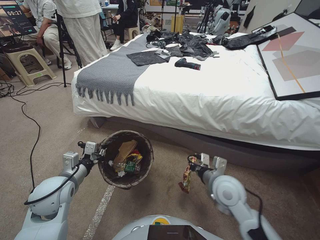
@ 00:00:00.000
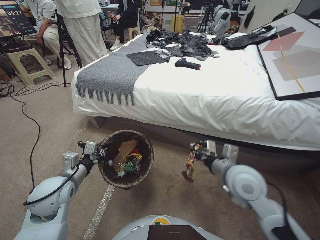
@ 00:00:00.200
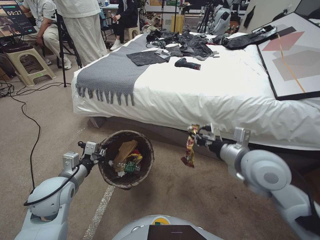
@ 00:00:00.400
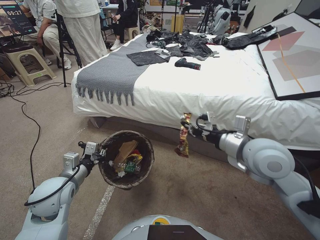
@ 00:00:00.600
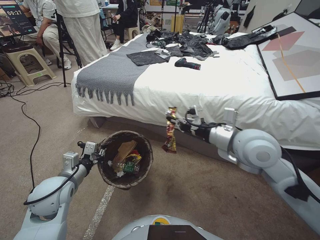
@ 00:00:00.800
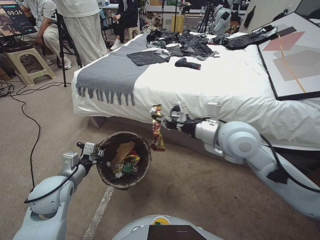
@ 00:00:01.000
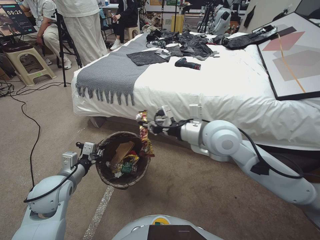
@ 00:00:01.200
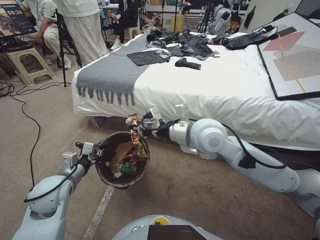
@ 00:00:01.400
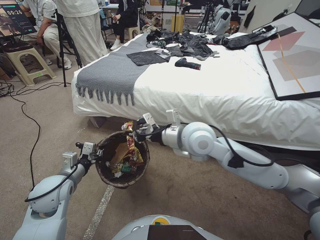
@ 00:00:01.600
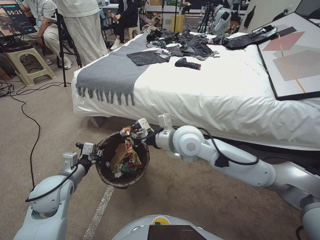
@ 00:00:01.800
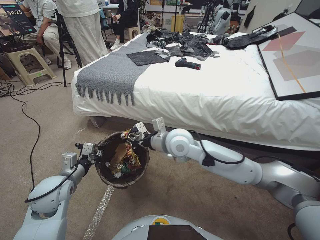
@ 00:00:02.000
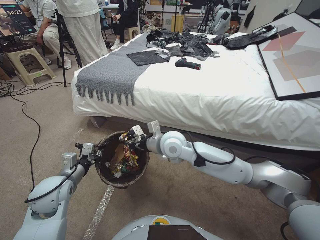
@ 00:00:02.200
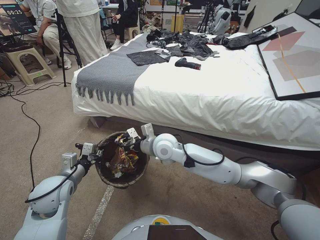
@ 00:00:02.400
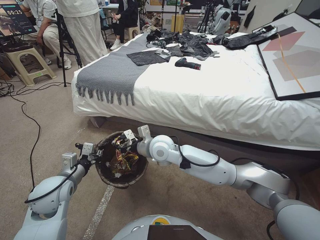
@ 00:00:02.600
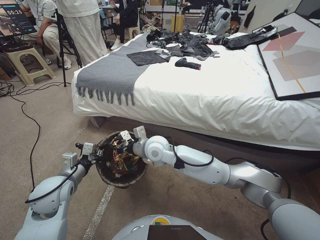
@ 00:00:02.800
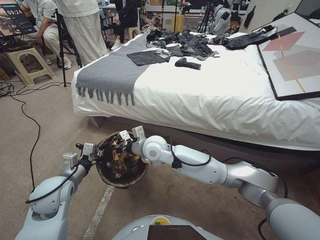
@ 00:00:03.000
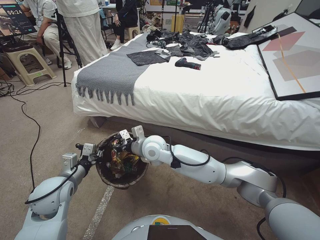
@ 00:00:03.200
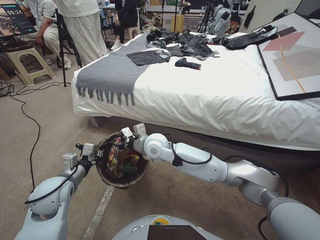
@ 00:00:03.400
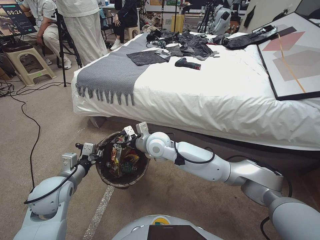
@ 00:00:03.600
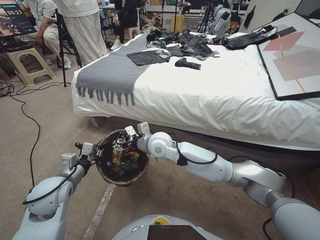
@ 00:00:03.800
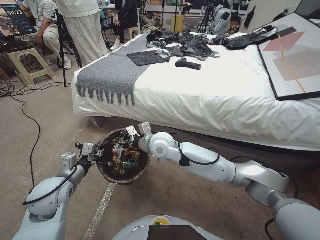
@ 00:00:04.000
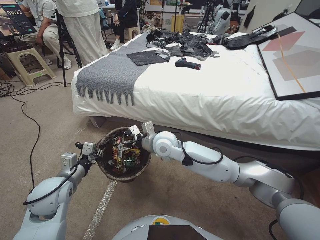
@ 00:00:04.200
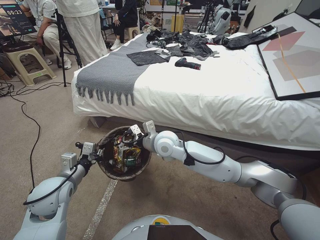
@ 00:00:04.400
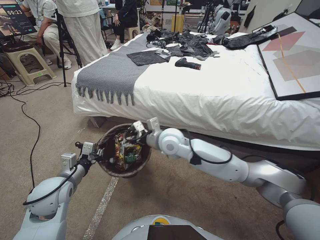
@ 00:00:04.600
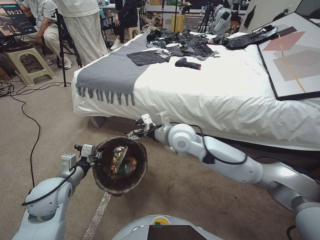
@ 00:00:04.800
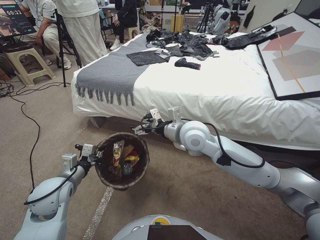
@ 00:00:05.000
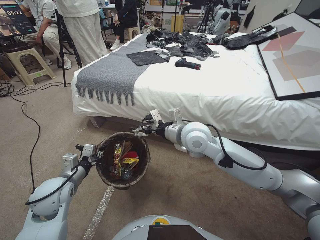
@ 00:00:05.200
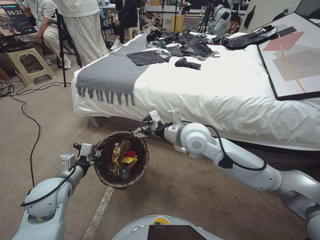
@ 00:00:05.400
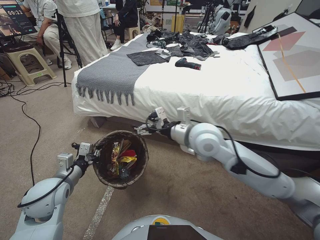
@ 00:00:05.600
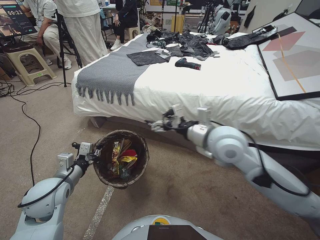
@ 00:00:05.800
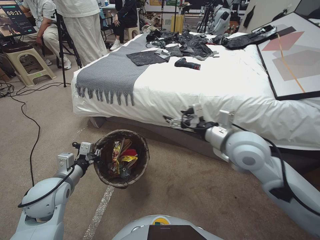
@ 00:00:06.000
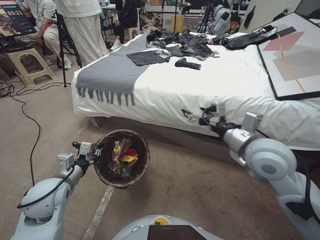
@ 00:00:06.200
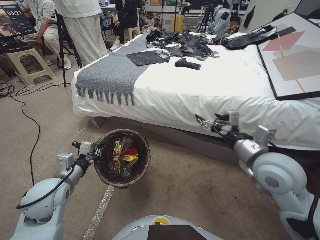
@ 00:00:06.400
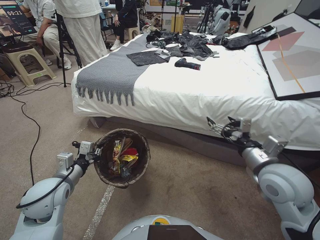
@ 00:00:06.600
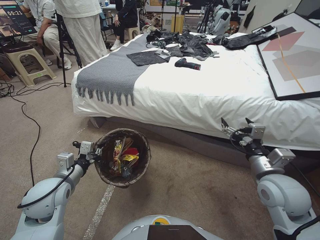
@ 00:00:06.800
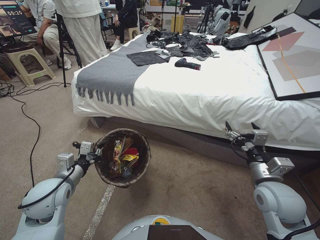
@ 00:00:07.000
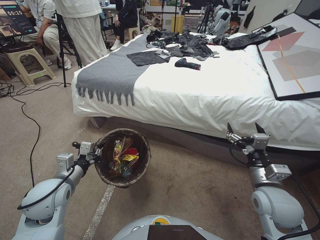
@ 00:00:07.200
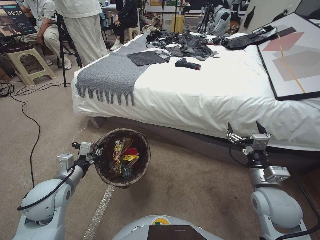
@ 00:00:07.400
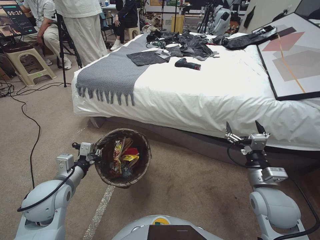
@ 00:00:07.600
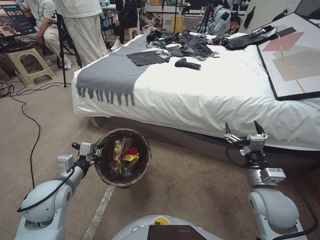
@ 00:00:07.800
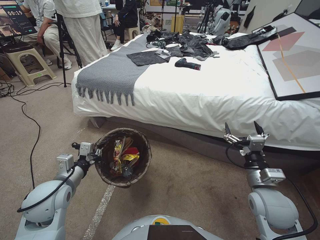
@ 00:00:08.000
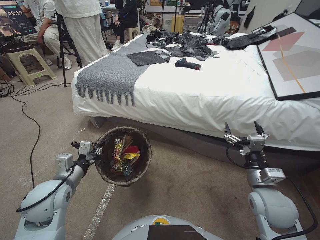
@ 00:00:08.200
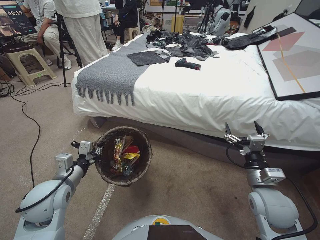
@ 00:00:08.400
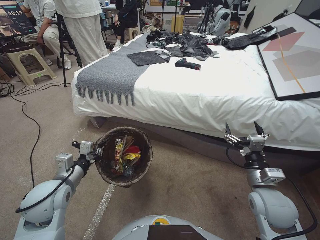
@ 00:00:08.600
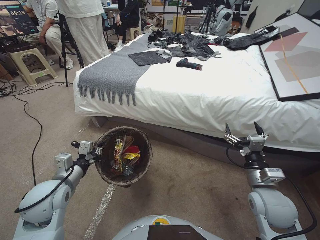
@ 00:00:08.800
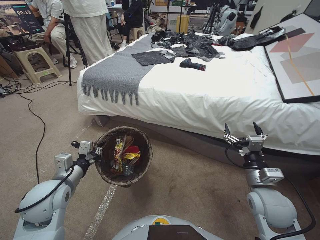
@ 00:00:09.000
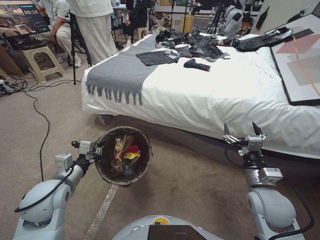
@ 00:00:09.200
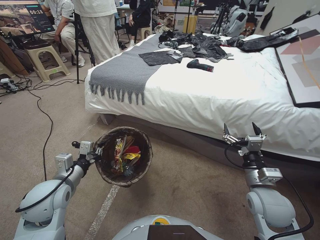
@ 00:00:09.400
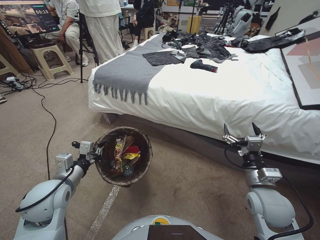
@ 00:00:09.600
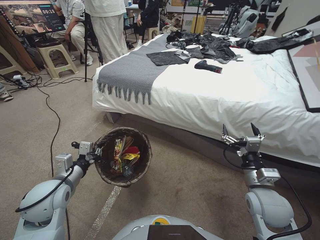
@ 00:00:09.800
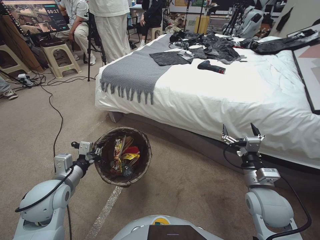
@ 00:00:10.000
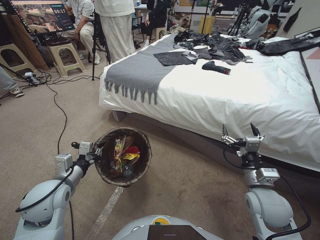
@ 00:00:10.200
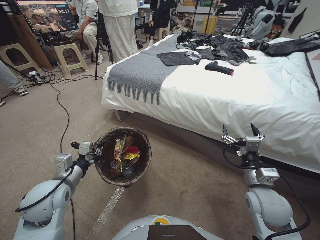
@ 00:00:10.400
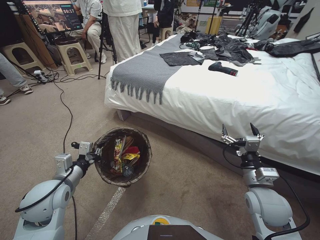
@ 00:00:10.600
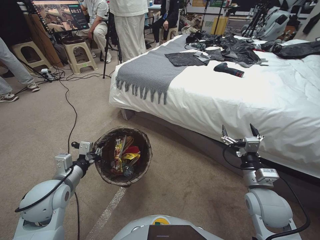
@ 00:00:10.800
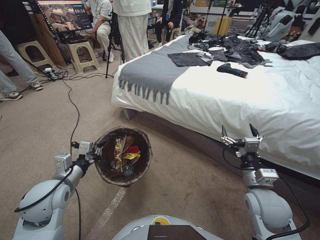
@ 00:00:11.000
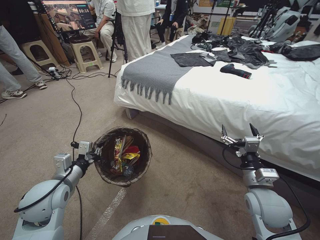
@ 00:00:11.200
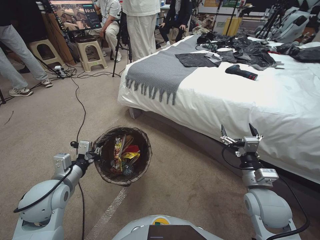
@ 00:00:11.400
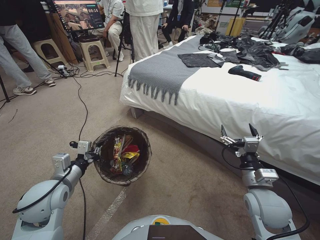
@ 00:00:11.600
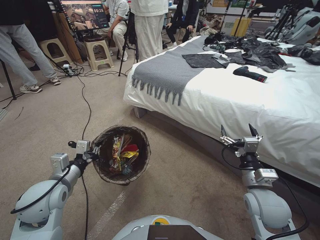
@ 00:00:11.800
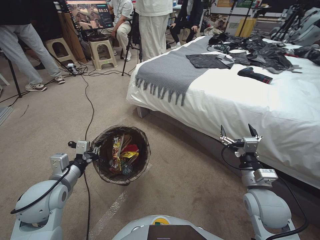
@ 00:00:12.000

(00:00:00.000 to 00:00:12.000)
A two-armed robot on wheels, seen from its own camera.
Task of the whole recording: Pick up the trash bin, then pick up the garbage from the floor and place it into the trash bin.
00:00:00.000 - 00:00:01.600: The right gripper travels upward, to the left and forward by approximately 25 cm.
00:00:01.600 - 00:00:03.000: The right gripper travels downward and to the left by some 15 cm.
00:00:03.000 - 00:00:04.400: The right gripper opens up.
00:00:04.400 - 00:00:06.000: The right gripper goes roughly 25 cm to the right, upward and backward.
00:00:06.000 - 00:00:07.600: The right gripper travels downward, to the right and backward by approximately 20 cm.

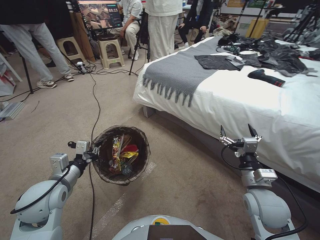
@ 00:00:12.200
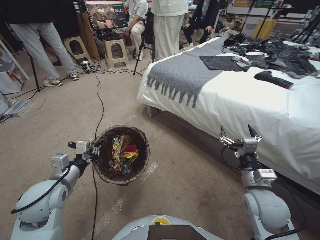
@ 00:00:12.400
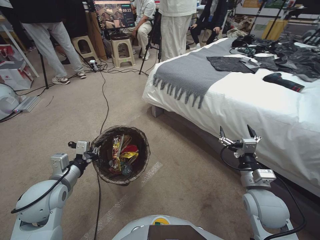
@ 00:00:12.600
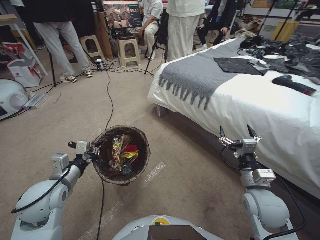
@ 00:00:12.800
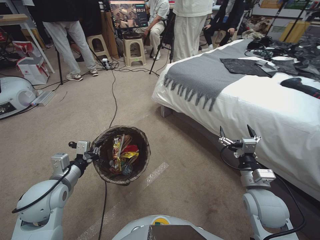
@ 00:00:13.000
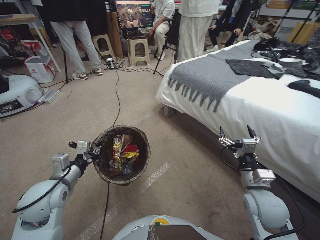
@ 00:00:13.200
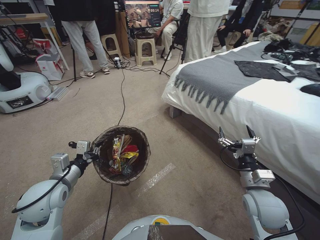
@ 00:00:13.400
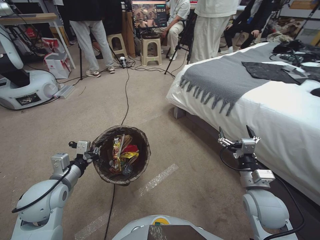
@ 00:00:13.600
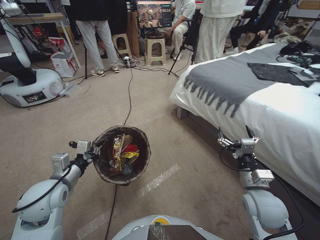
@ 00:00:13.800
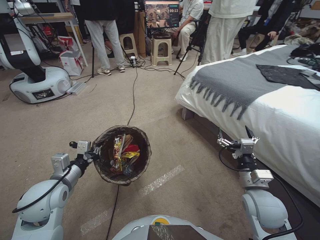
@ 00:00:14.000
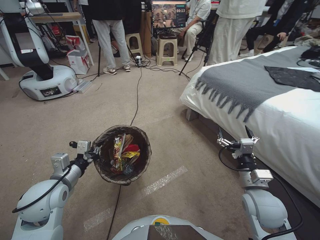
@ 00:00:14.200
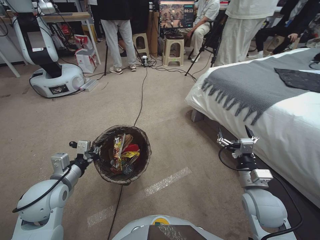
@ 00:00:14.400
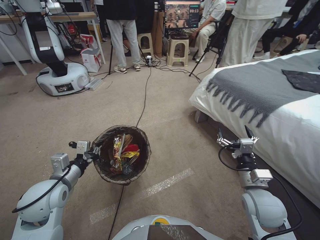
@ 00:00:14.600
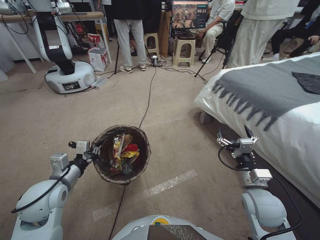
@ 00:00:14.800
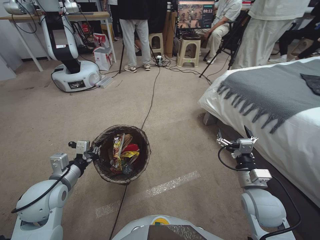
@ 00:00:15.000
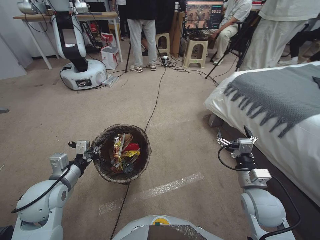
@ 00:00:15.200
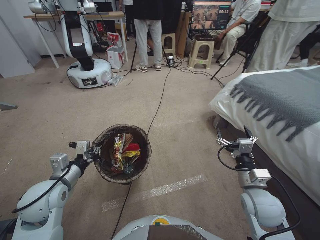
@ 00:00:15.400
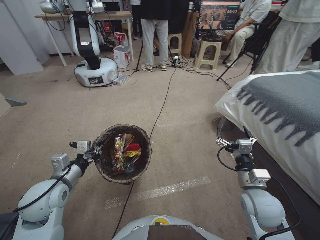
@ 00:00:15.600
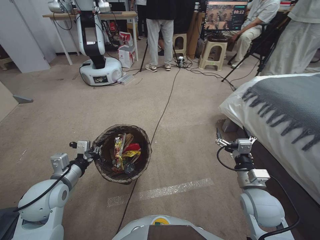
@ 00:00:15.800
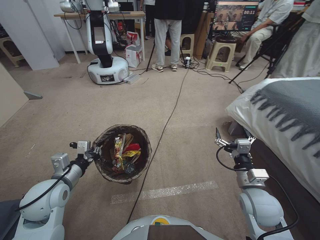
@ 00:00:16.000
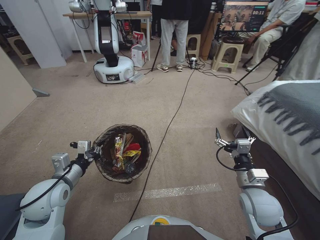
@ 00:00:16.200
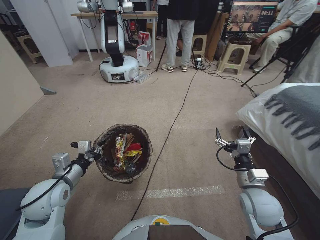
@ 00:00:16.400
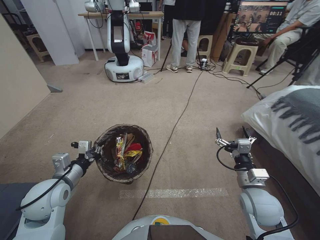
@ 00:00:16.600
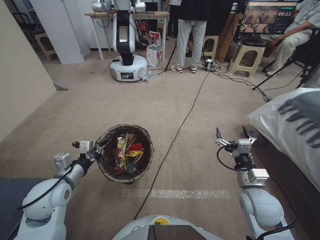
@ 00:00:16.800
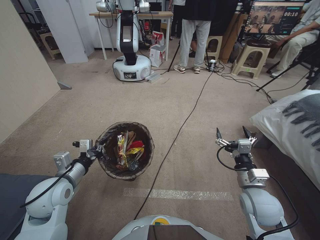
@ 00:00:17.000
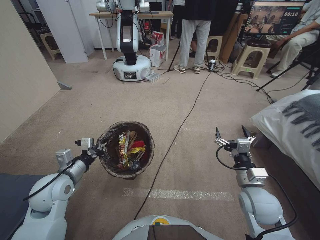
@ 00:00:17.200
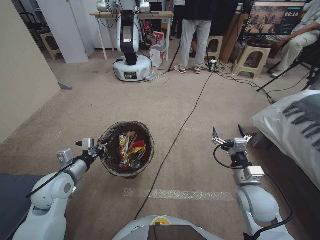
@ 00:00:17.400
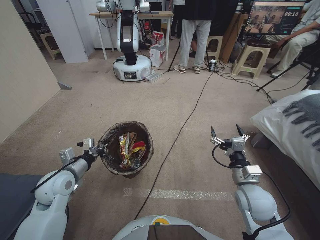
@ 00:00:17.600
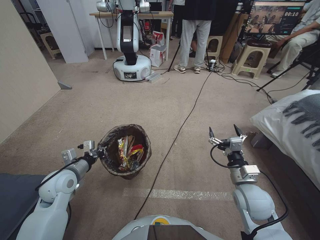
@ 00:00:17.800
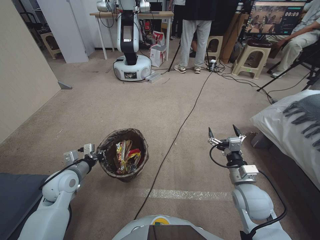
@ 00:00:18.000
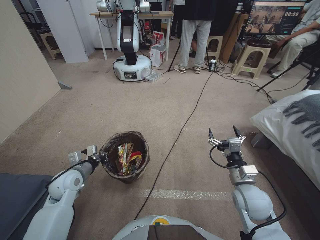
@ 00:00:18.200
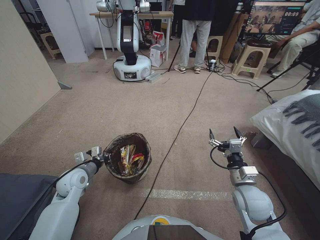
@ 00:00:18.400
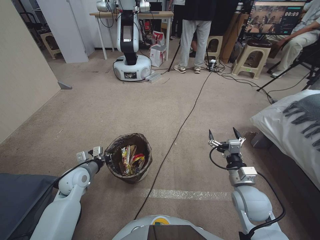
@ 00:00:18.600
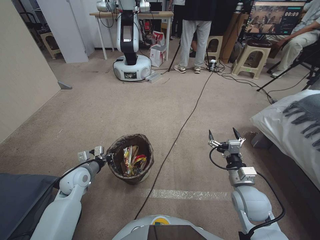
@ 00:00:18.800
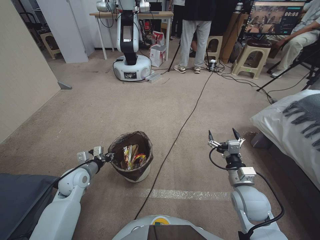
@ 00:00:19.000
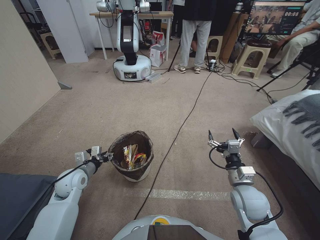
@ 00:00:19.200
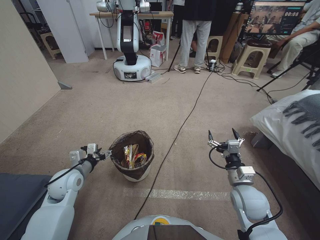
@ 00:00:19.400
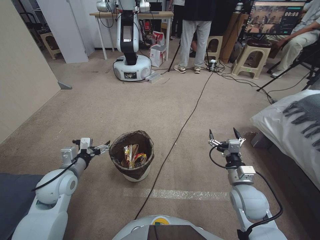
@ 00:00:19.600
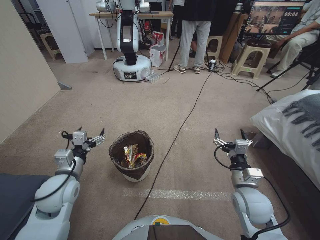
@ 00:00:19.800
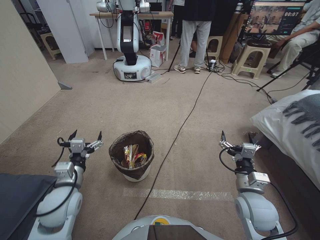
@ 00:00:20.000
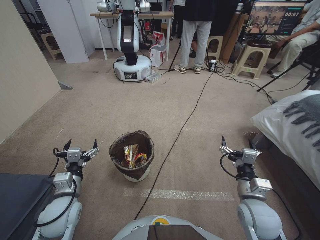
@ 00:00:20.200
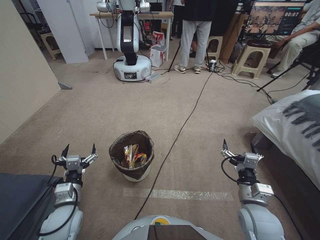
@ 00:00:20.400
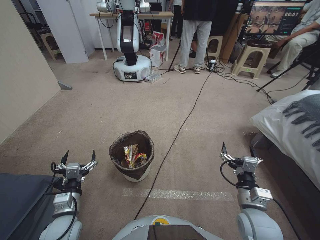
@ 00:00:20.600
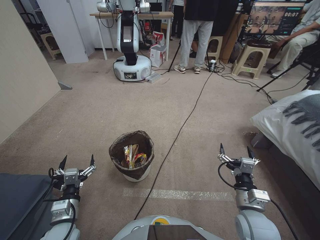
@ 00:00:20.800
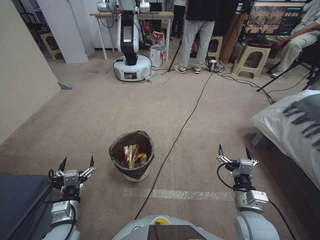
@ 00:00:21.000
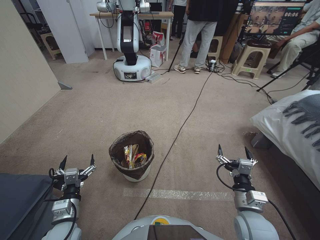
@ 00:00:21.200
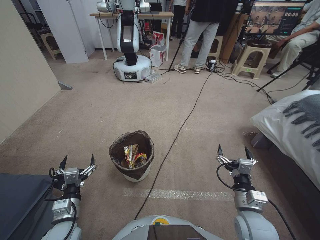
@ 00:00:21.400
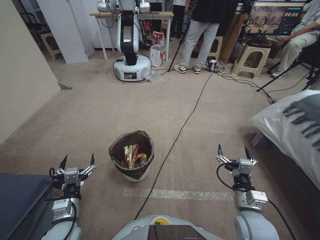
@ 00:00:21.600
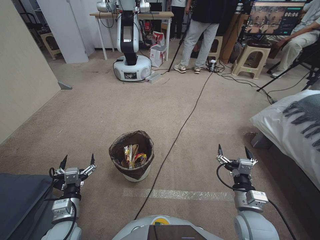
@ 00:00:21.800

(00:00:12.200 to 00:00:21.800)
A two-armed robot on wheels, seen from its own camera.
Task of the whole recording: Pick up the trash bin, then pick up the garbage from the floor and place it into the trash bin.
00:00:17.000 - 00:00:18.600: The left gripper heads downward and forward, covering about 10 cm.
00:00:18.600 - 00:00:20.200: The left gripper shifts some 10 cm backward and upward, and opens its fingers.
00:00:20.200 - 00:00:21.800: The left gripper moves downward and backward, roughly 10 cm.
